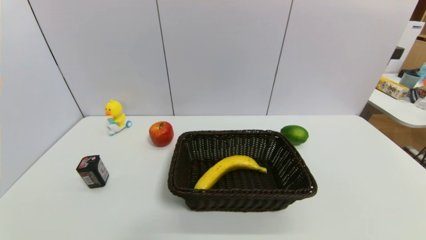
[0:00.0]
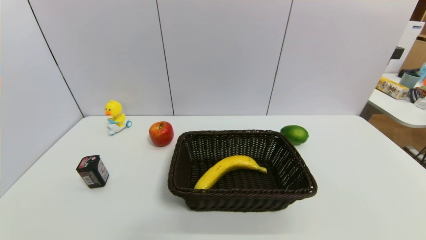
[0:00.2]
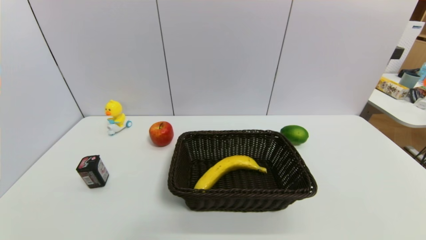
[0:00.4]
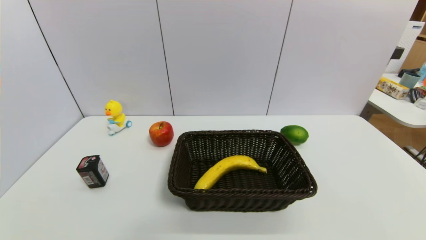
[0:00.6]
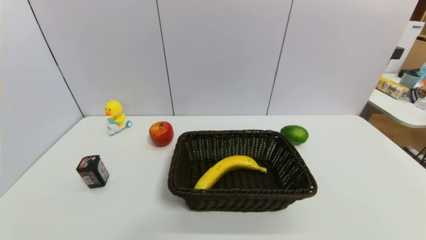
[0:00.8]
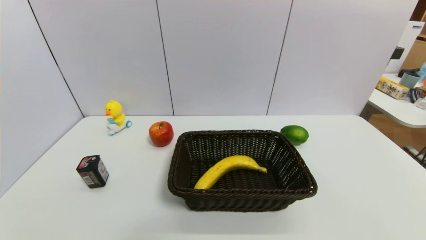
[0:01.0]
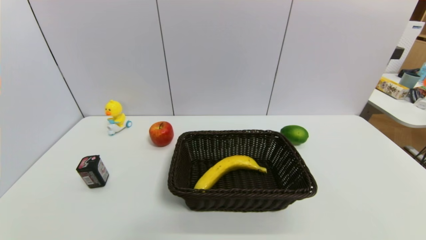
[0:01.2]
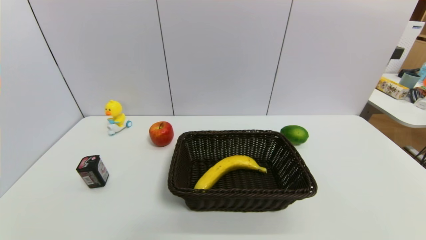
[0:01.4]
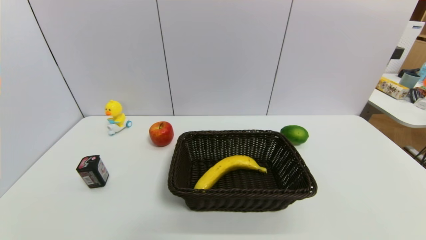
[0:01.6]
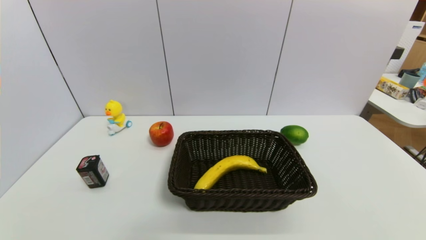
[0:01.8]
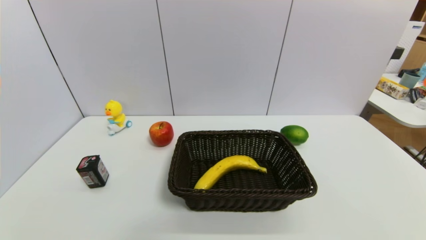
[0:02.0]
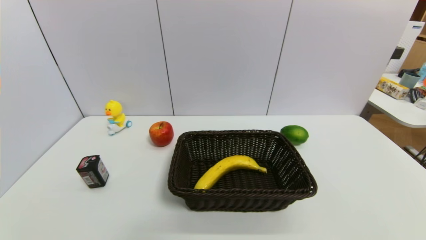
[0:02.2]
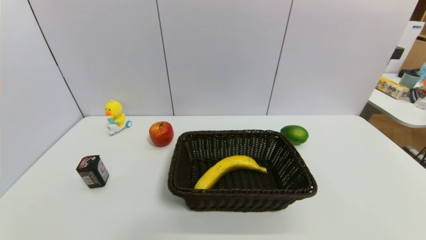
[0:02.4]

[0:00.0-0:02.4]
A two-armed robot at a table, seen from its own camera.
Task of the whole recording: use a gripper to pick the target object and place on the brown basket.
0:01.2 to 0:02.4: Both grippers stay about where they are.
